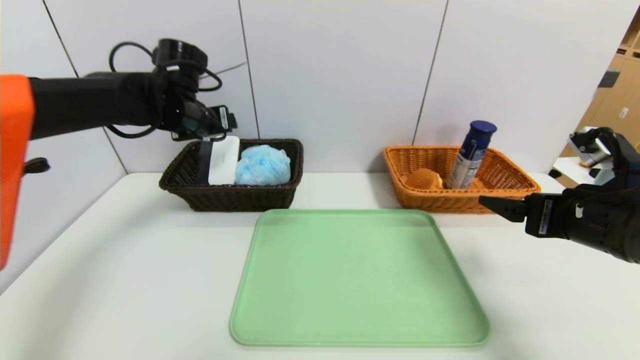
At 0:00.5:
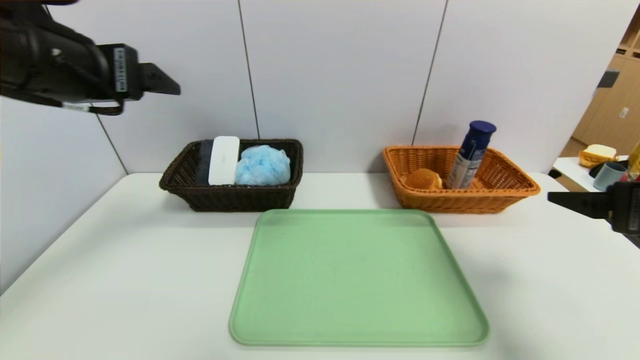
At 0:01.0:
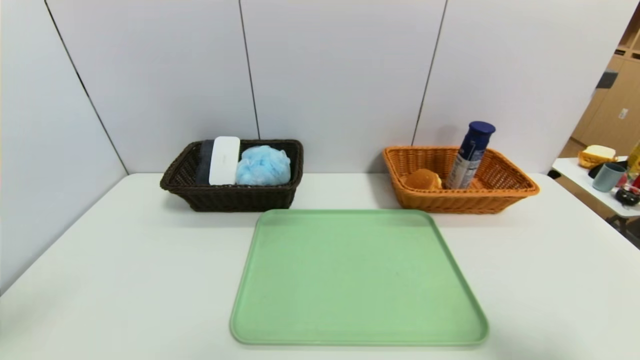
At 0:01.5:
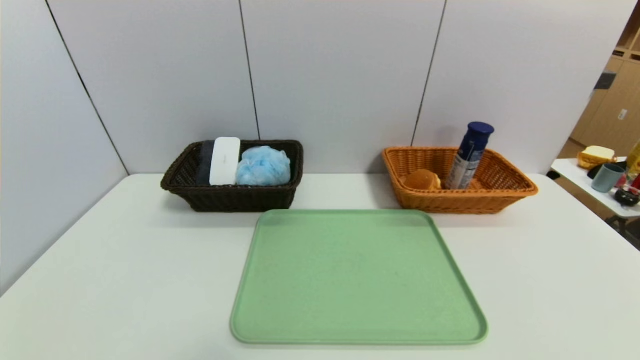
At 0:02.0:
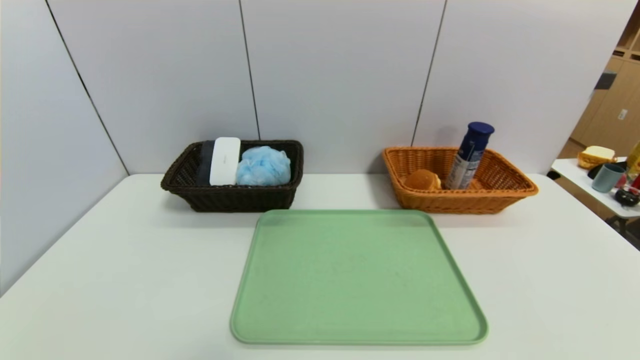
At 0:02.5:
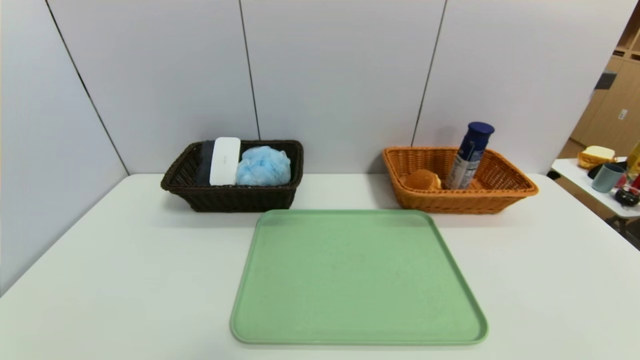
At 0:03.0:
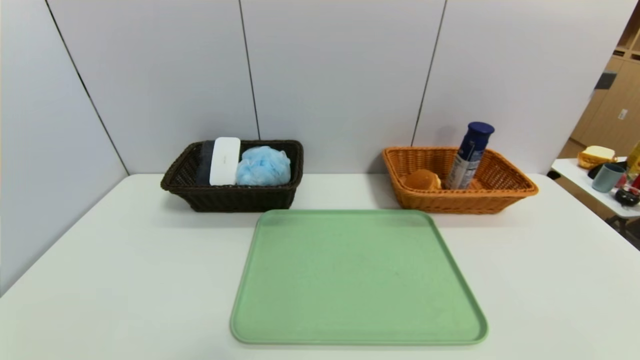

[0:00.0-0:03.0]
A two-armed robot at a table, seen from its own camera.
Task of the whole recording: place the food in the right basket with the right gripper, and place the non food items in the left basket with the left gripper.
0:00.0 to 0:01.5: The left gripper shifts approximately 50 cm backward, while the right gripper goes about 30 cm backward.
